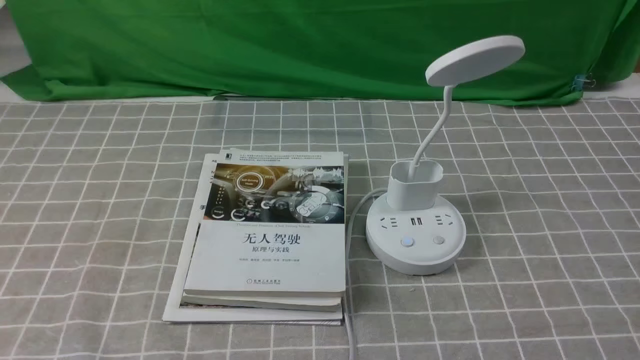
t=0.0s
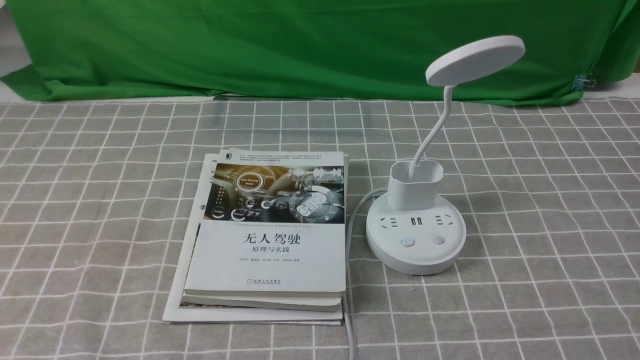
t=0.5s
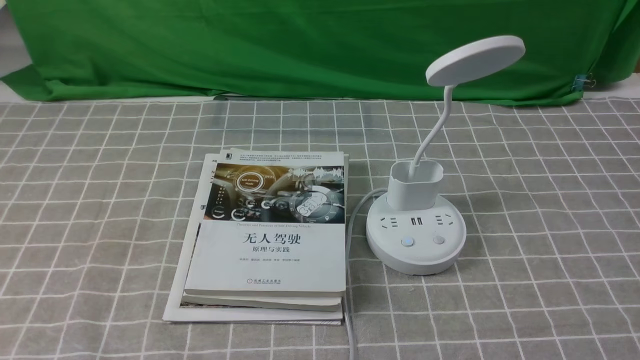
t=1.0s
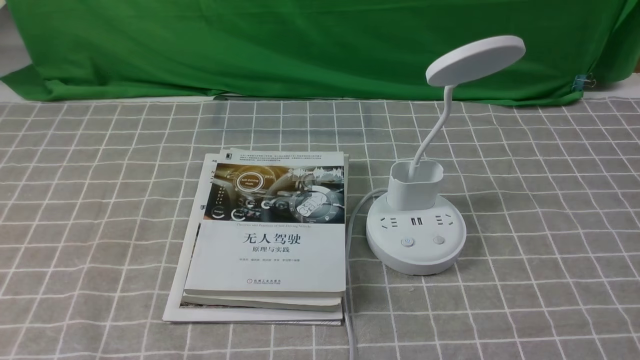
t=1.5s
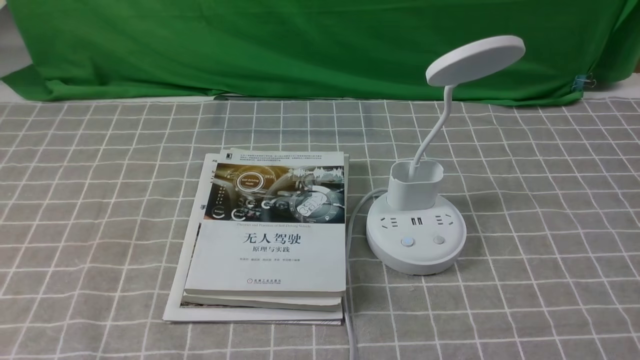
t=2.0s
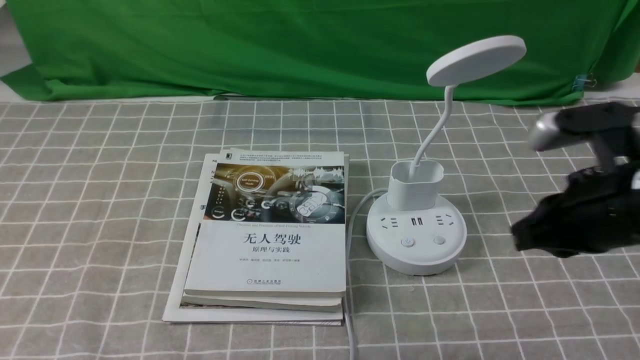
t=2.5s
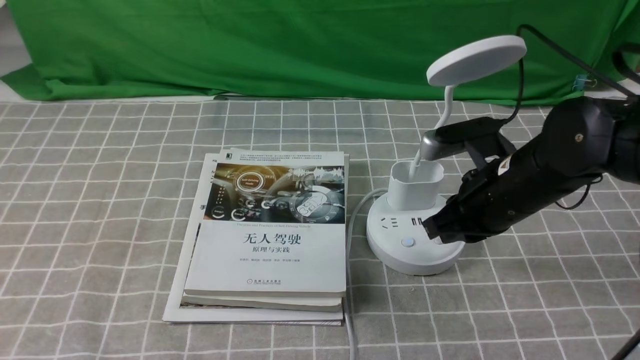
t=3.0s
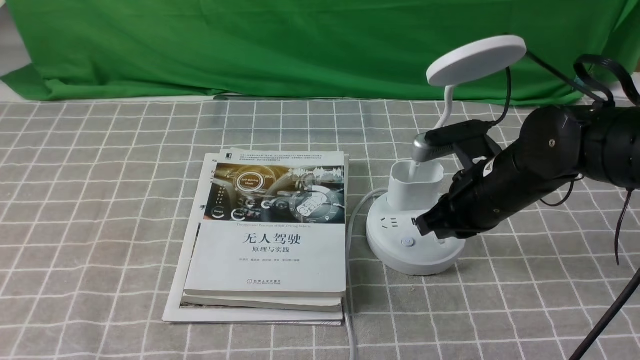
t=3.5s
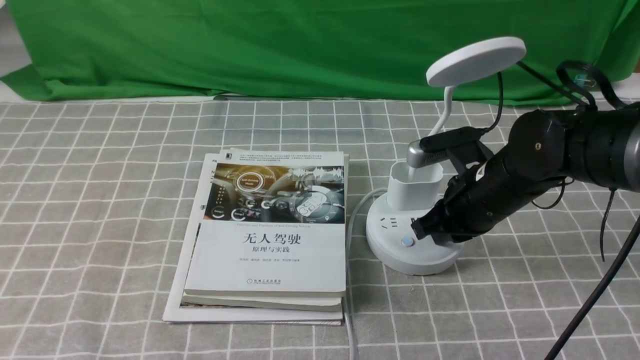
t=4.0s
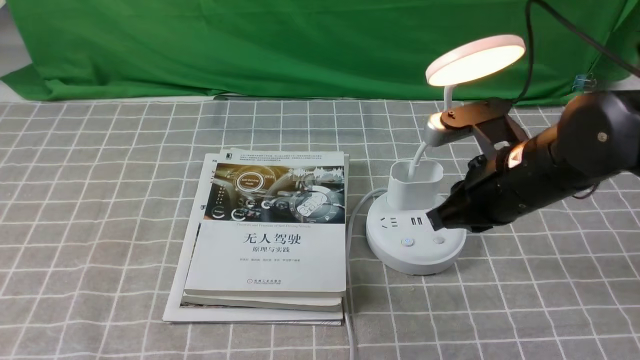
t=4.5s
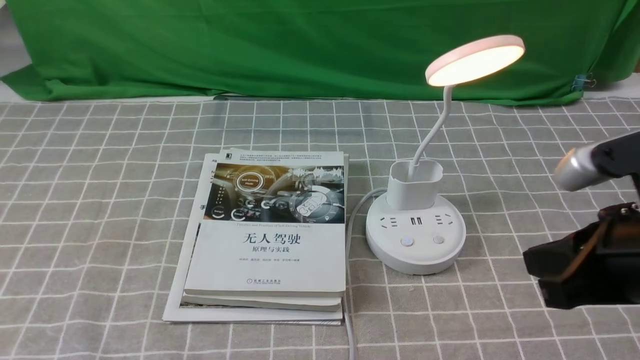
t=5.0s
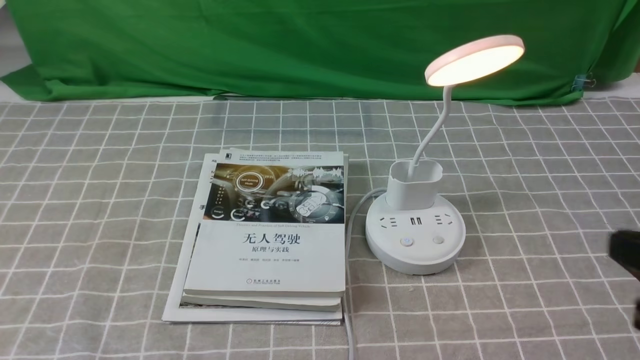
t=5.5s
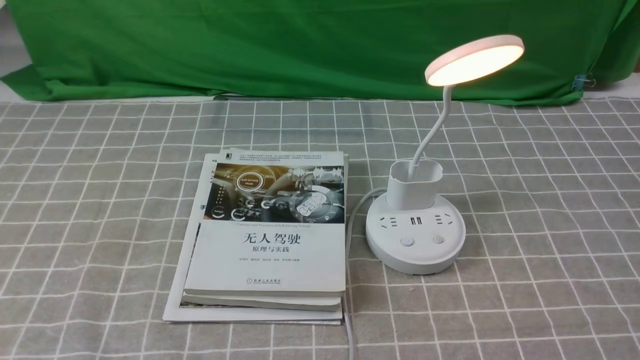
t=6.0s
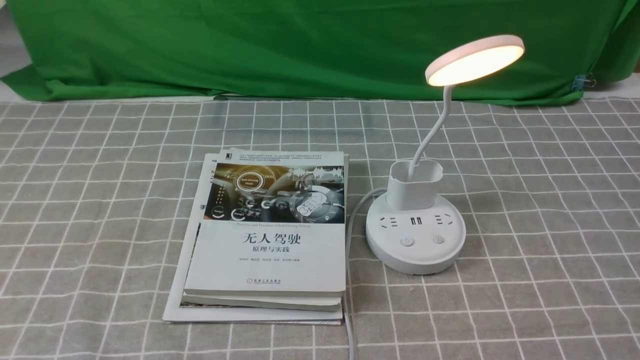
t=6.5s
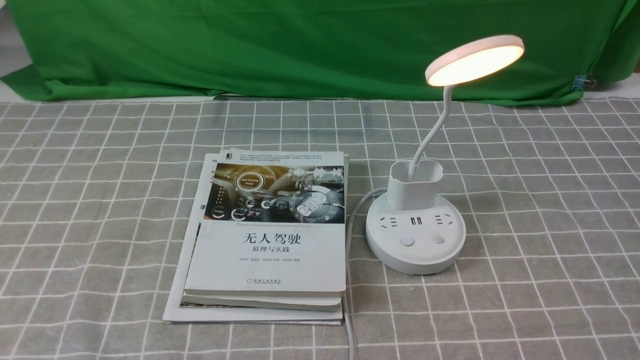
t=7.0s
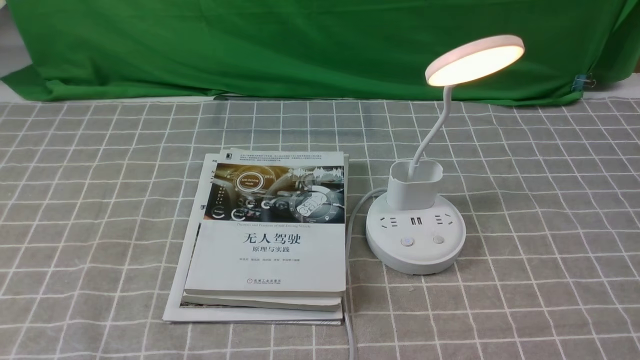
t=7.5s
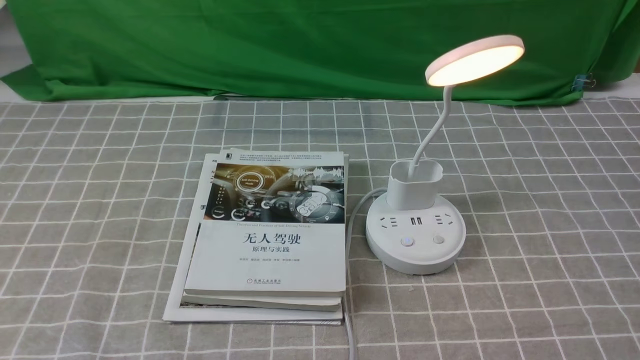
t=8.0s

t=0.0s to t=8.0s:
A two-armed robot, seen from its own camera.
Step, t=0.0s to t=4.0s: use the right arm to press the button switch on the lamp holder.
t=2.0s to t=4.0s: The right gripper travels forward and to the left by some 30 cm.
t=4.0s to t=6.0s: The right gripper shifts about 30 cm backward and to the right.

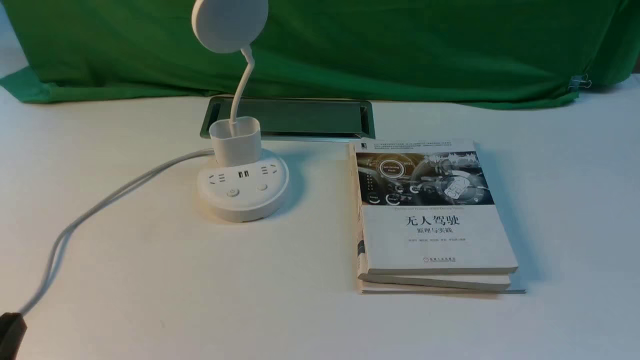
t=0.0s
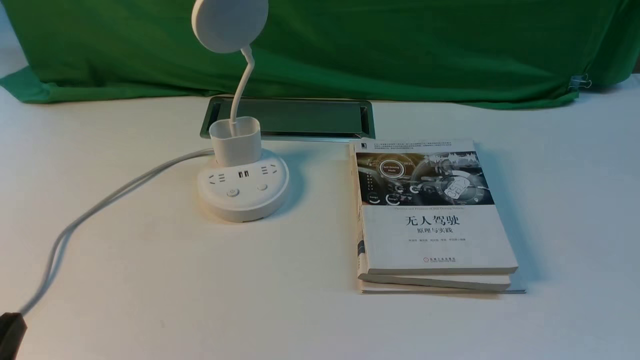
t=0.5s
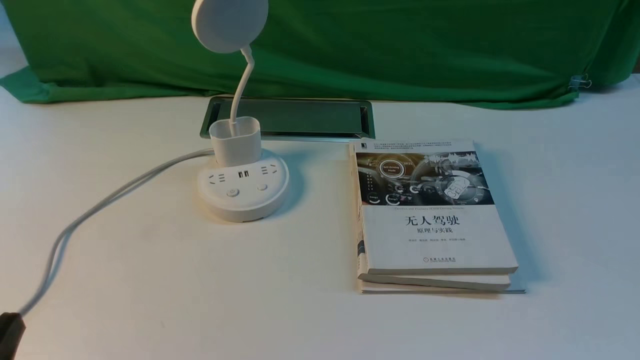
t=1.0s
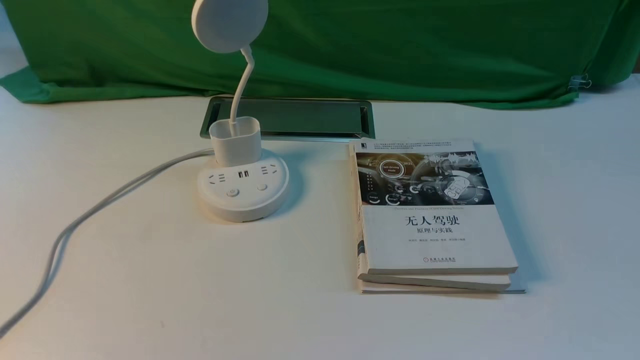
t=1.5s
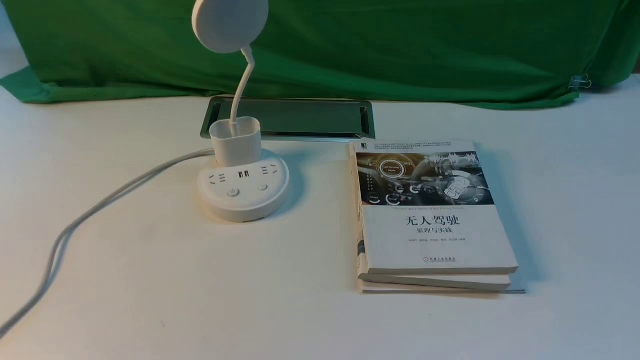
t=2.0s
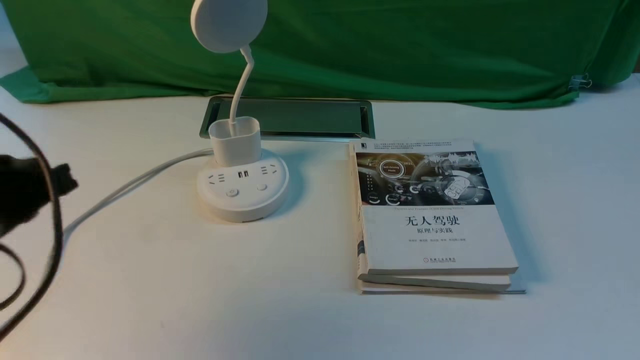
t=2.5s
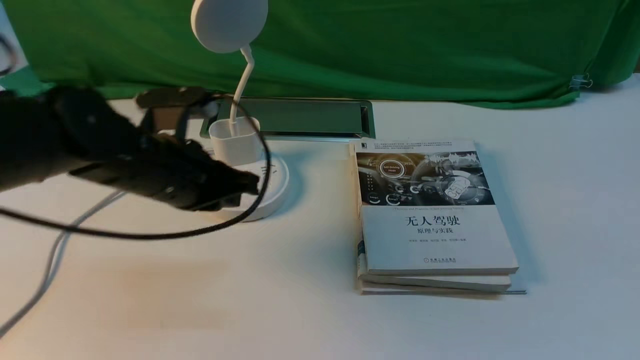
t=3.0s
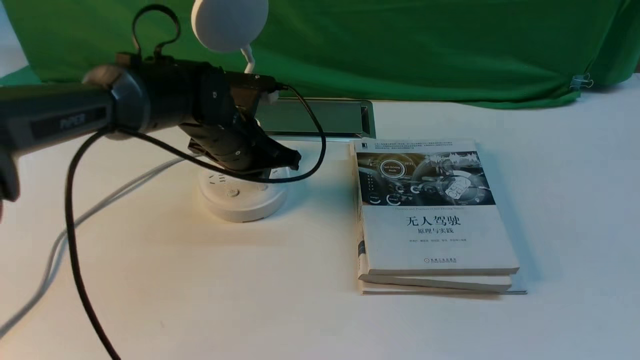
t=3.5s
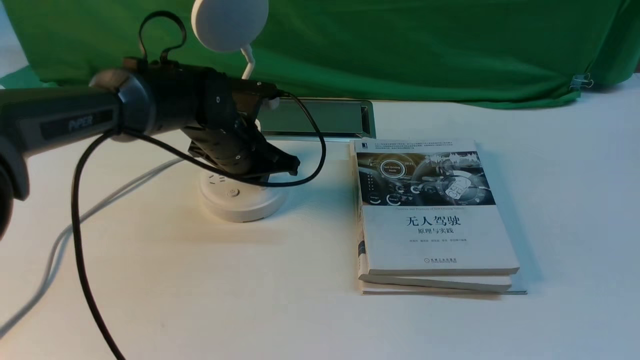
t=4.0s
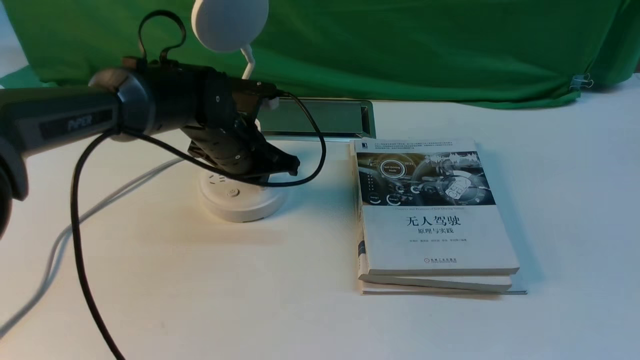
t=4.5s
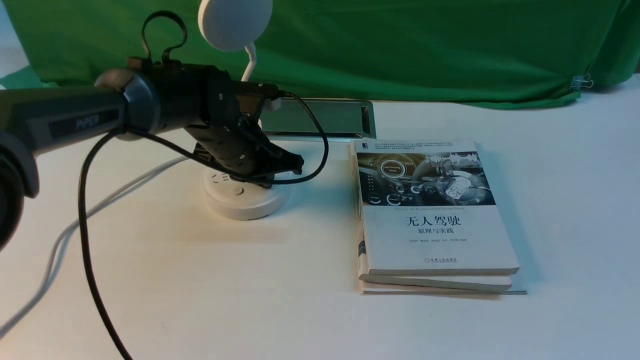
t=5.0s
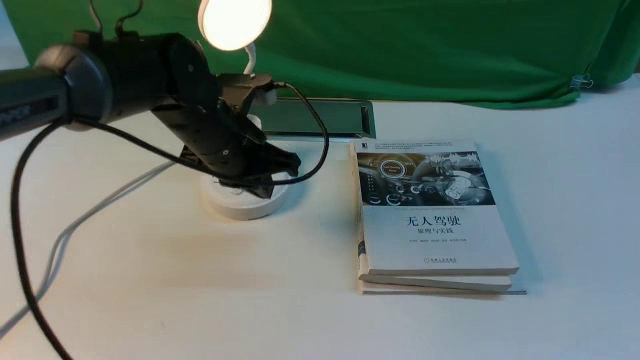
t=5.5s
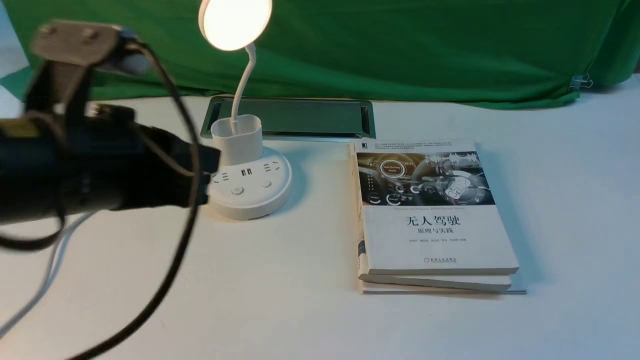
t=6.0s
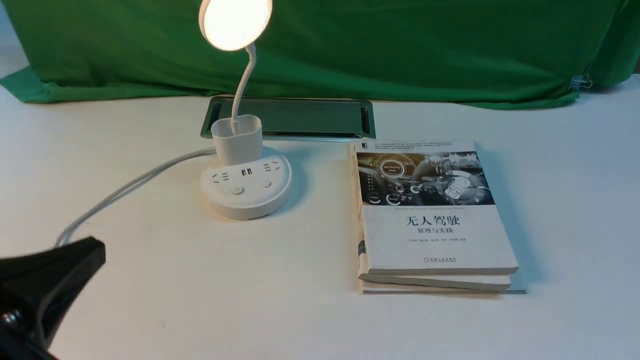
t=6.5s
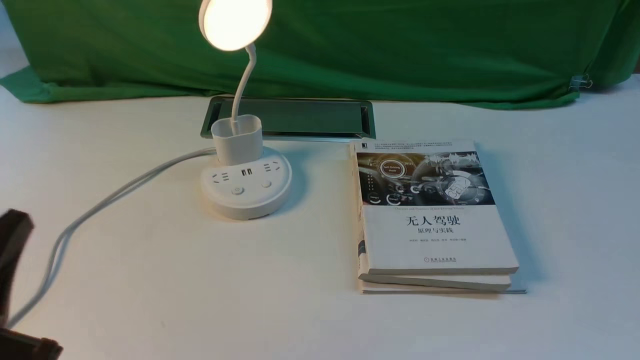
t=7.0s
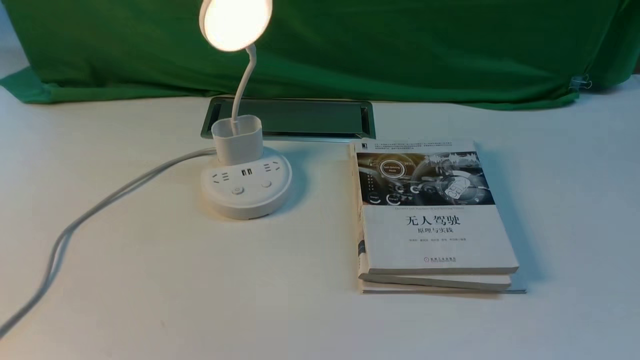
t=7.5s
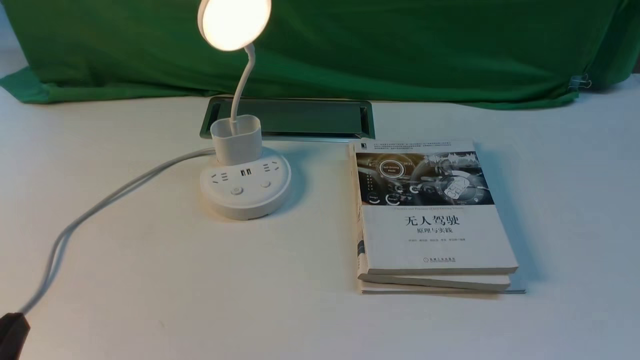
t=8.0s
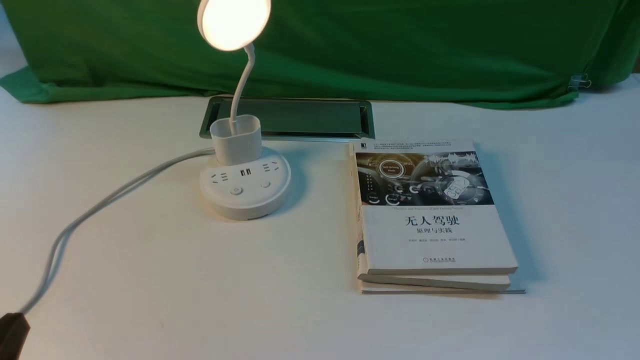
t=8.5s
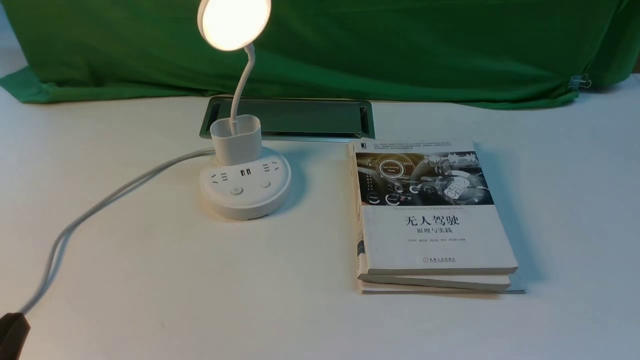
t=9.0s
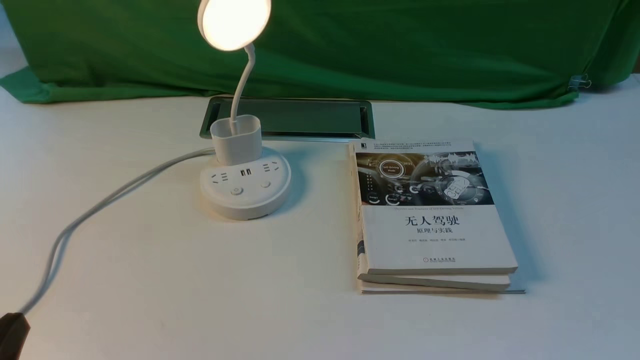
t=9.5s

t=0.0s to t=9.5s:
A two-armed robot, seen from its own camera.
Step, t=0.0s to t=5.5s: use the left arm to press the button switch on the lamp holder.
t=2.0s to t=4.0s: The left gripper shifts some 40 cm forward, downward and to the right.
t=4.0s to t=5.5s: The left gripper moves backward, some 5 cm.
t=5.5s to t=7.5s: The left gripper heads backward and to the left, covering about 35 cm.
t=7.5s to t=9.5s: The grippers move only a little.
